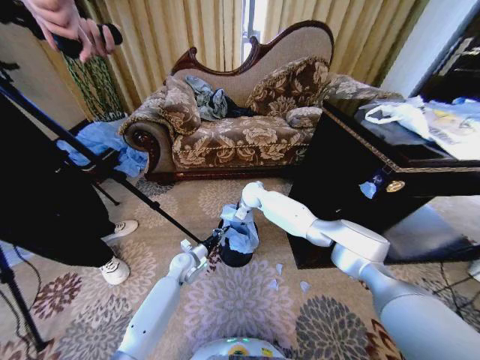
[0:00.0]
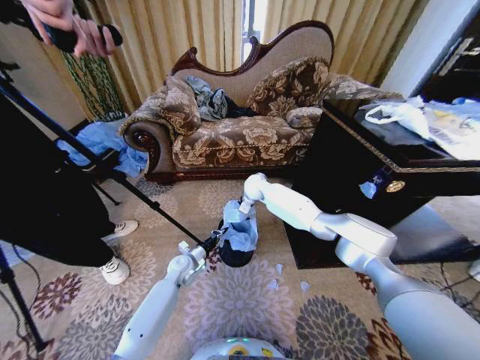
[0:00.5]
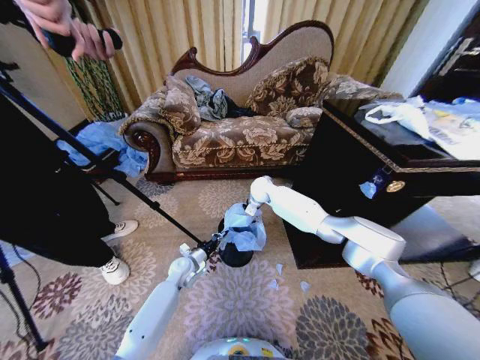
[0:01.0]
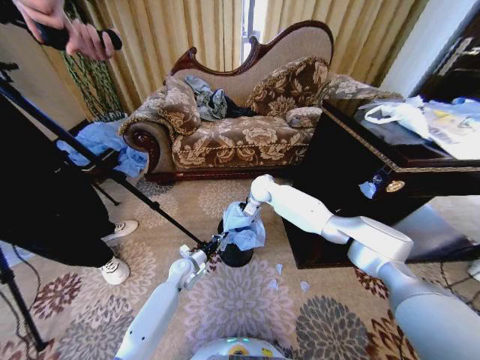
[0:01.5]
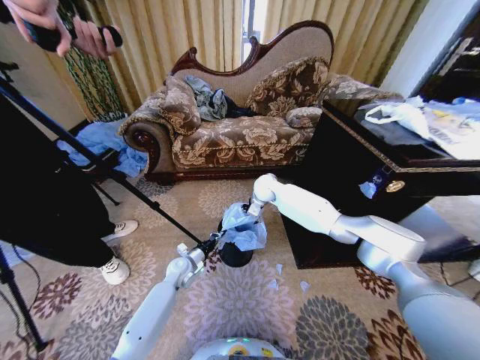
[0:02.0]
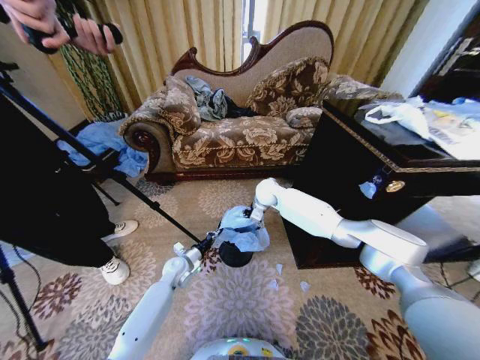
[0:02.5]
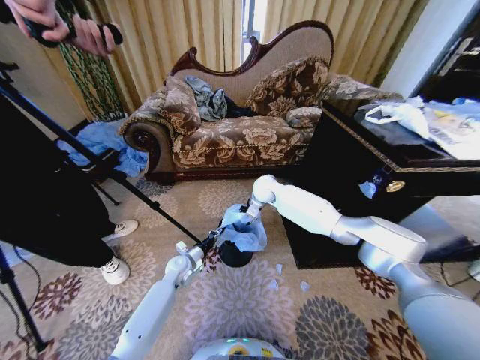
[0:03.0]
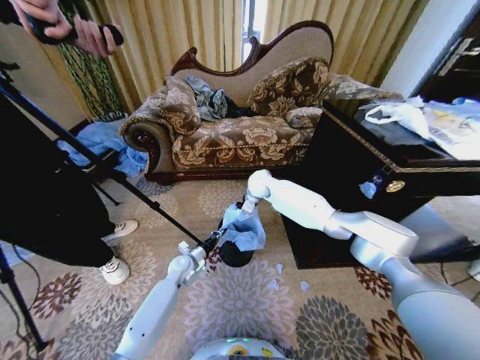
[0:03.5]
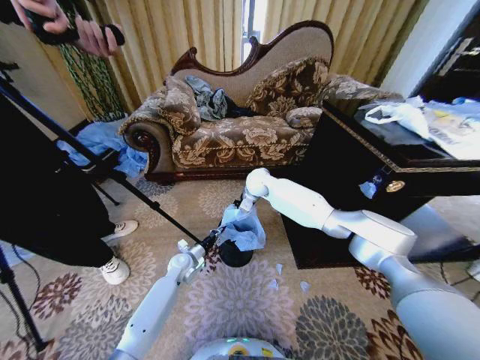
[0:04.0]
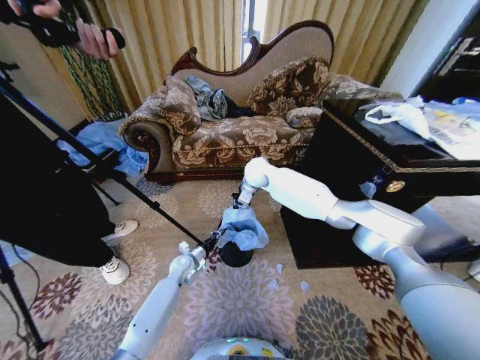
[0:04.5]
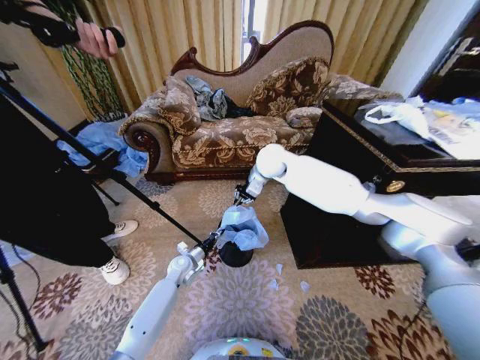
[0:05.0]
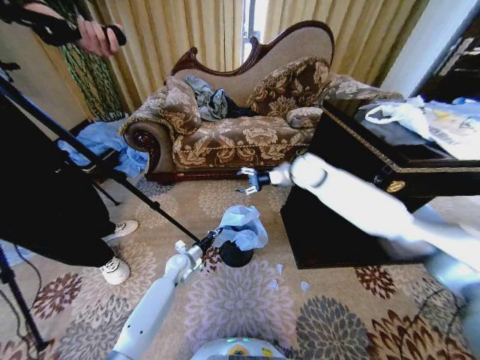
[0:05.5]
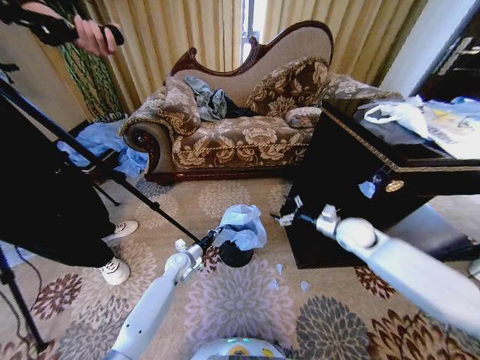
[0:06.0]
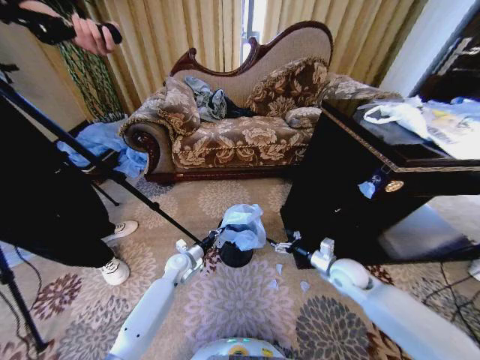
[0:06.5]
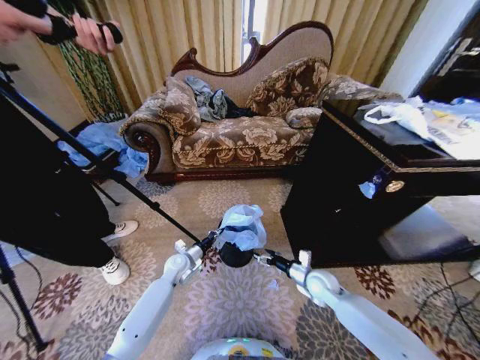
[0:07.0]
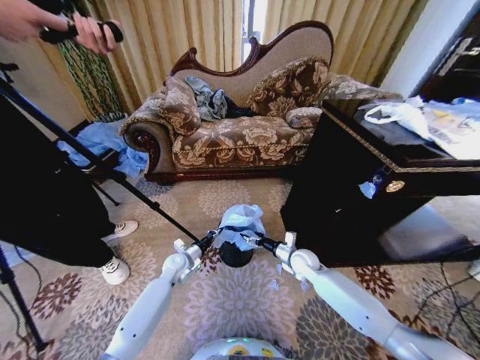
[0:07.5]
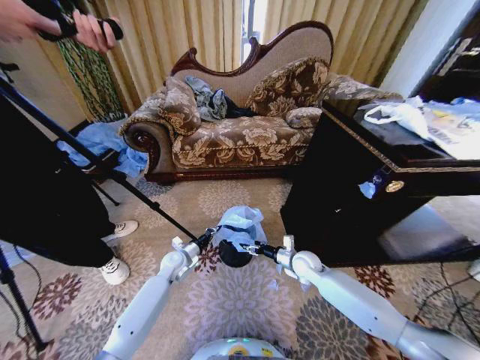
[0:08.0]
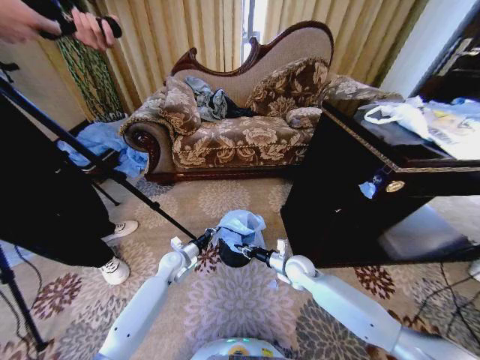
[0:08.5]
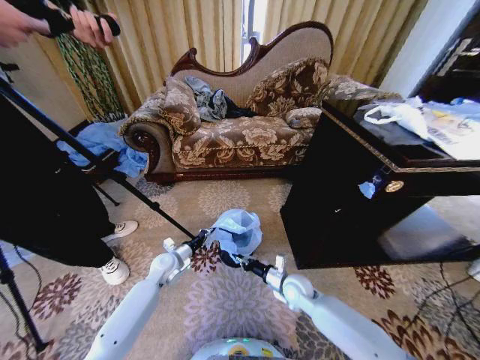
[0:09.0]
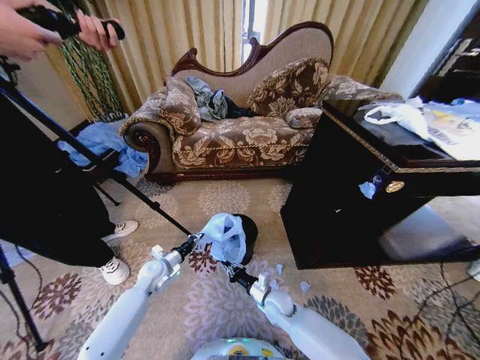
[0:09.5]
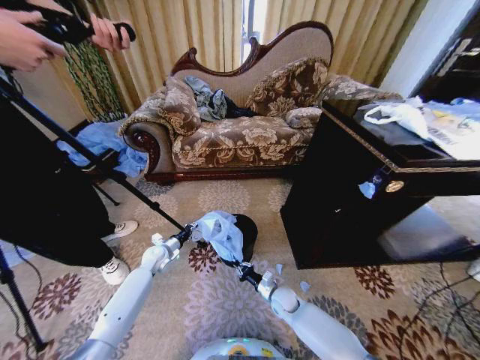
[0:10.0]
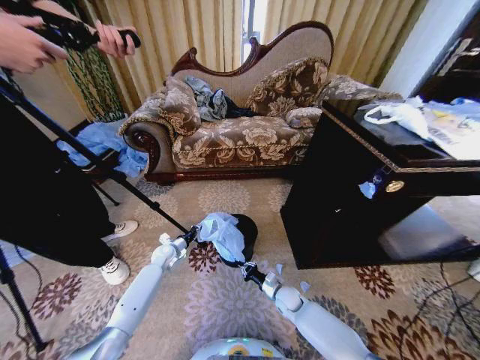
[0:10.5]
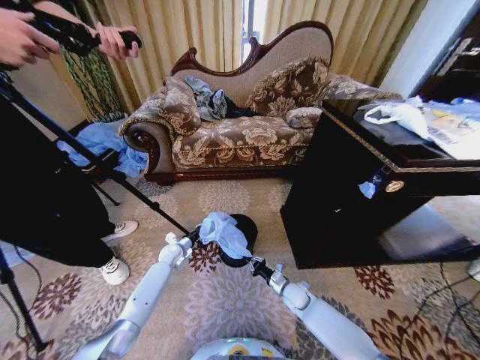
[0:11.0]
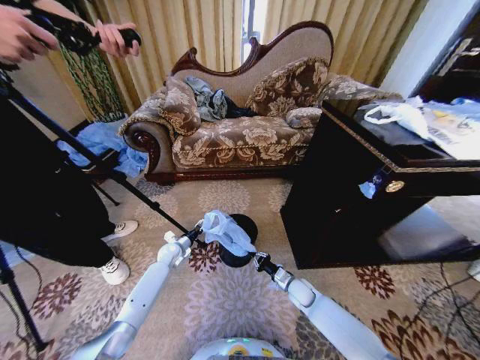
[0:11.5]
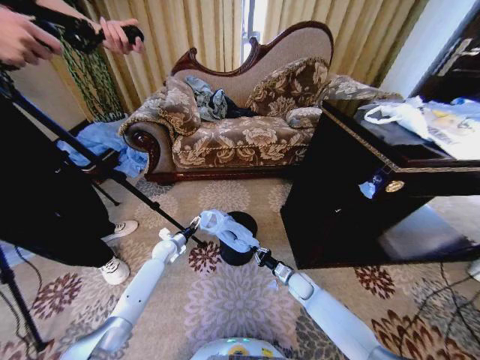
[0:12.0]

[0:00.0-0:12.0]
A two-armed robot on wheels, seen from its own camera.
Task of the whole recording: Place a garbage bag over the trash bin.
0.0 to 2.0 s: The right gripper shifts by approximately 5 cm.
2.0 to 4.0 s: The right gripper closes up.
4.0 to 6.0 s: The right gripper is displaced to the right and backward by some 35 cm, and opens its fingers.
6.0 to 8.0 s: The right gripper heads downward and to the left, covering approximately 20 cm.
8.0 to 10.0 s: The right gripper travels downward, backward and to the left by about 15 cm, and closes up, while the left gripper heads to the left, covering some 10 cm.
10.0 to 12.0 s: The left gripper ends up about 5 cm from where it was, and opens. The right gripper moves to the right and forward, roughly 10 cm.

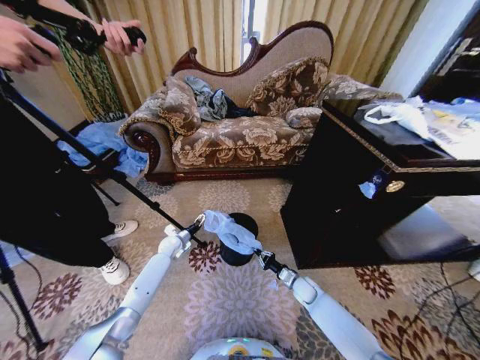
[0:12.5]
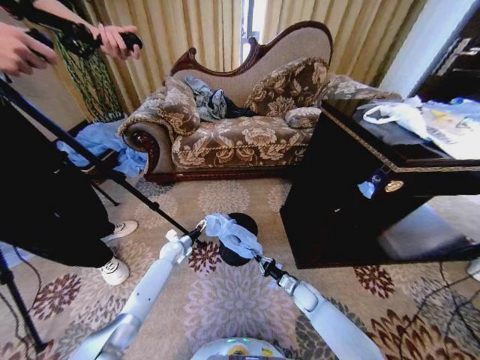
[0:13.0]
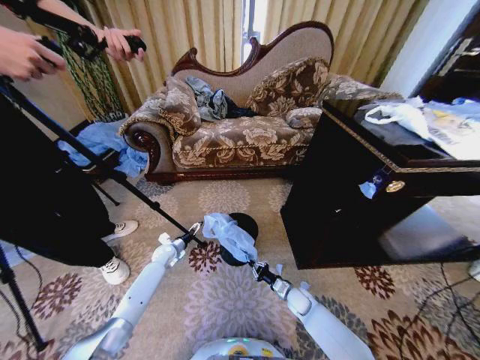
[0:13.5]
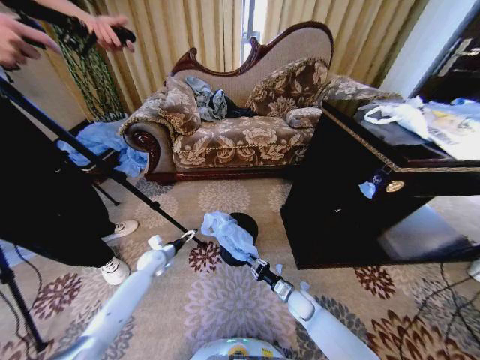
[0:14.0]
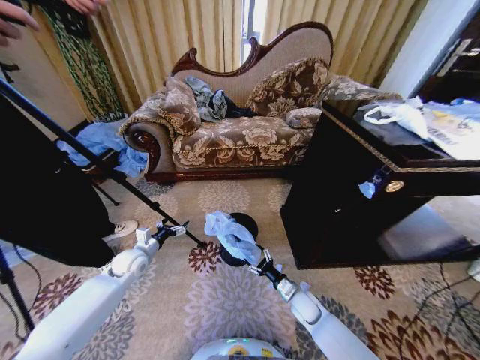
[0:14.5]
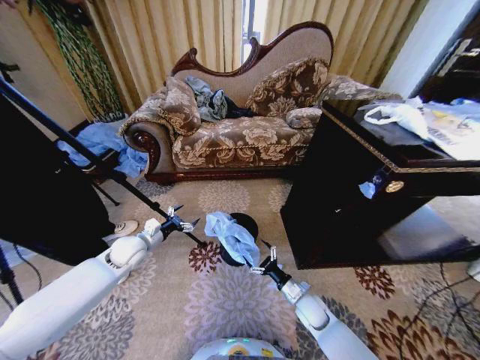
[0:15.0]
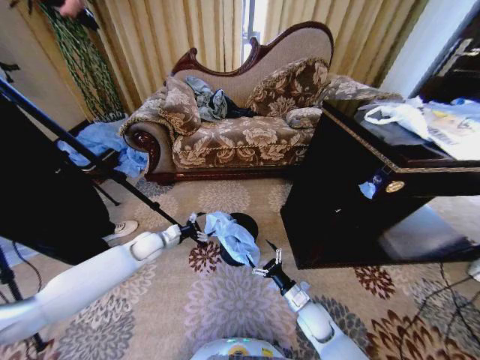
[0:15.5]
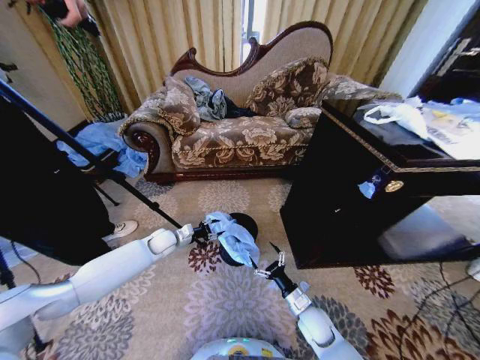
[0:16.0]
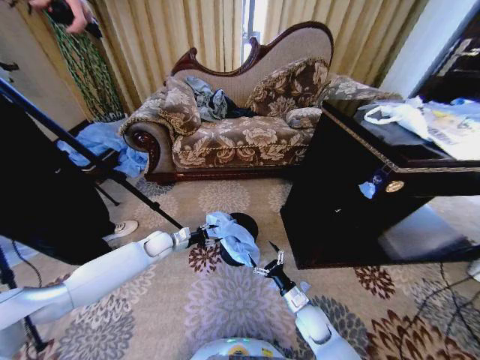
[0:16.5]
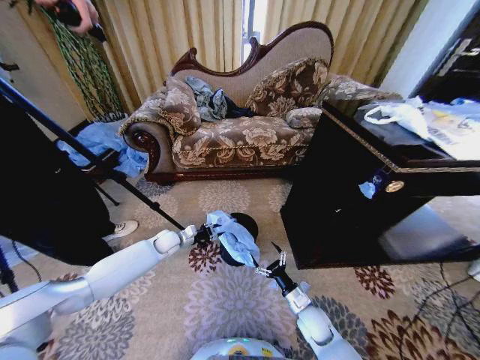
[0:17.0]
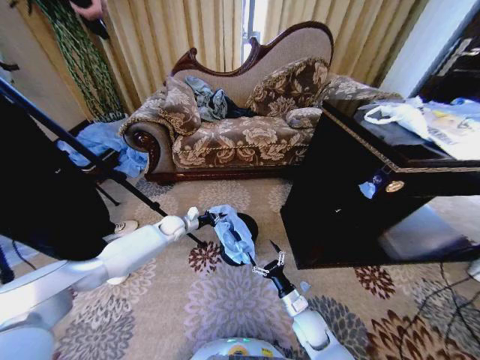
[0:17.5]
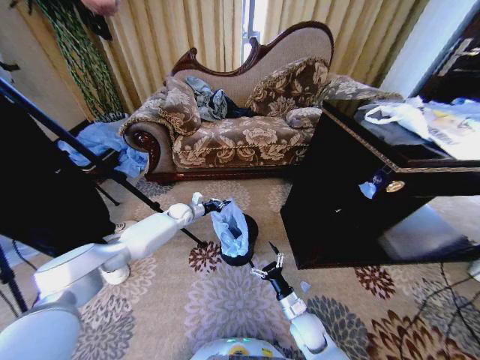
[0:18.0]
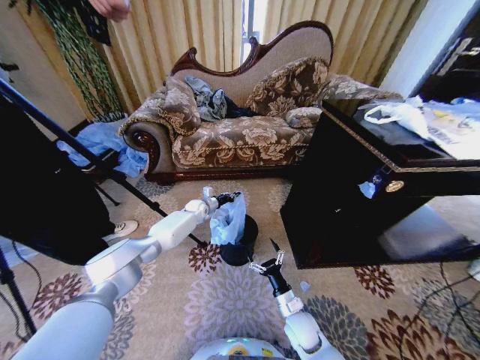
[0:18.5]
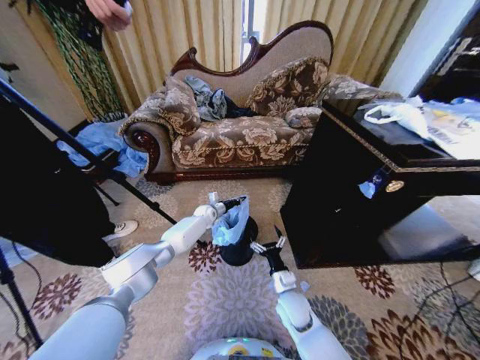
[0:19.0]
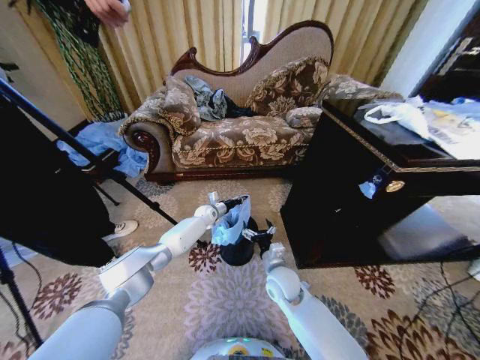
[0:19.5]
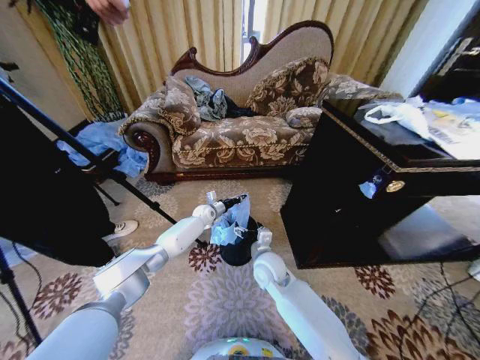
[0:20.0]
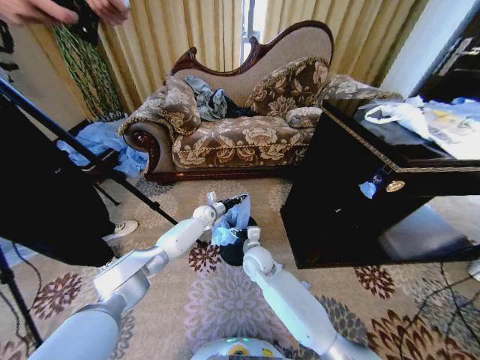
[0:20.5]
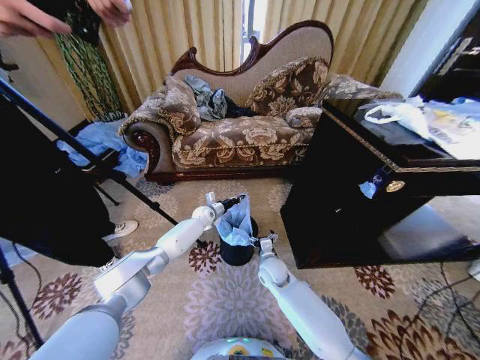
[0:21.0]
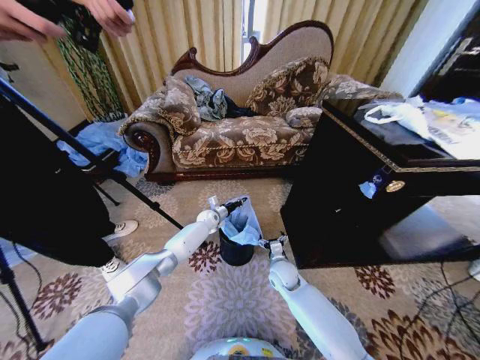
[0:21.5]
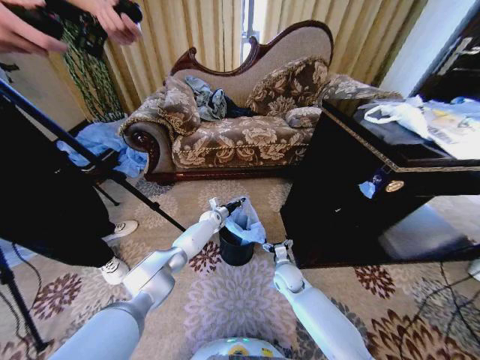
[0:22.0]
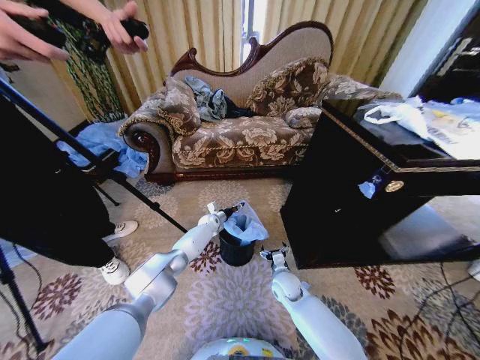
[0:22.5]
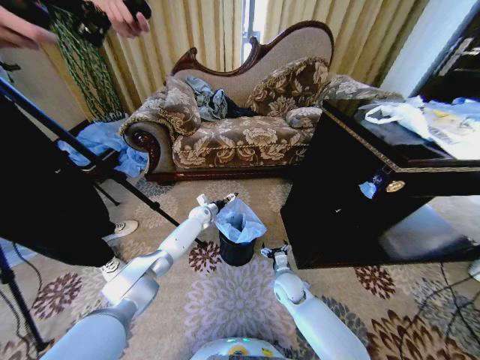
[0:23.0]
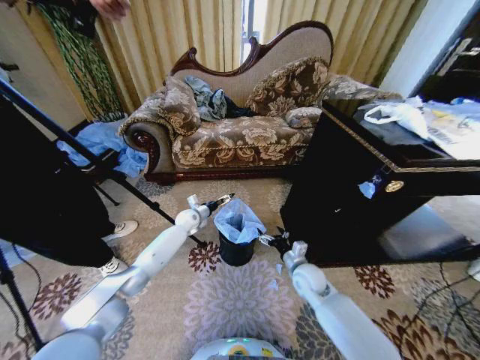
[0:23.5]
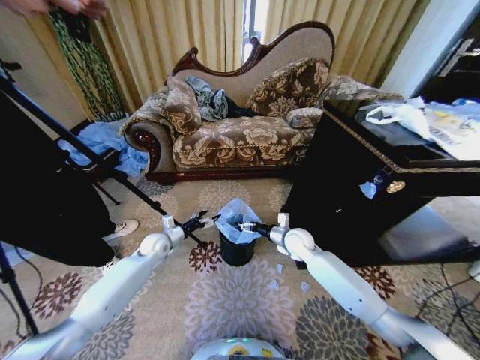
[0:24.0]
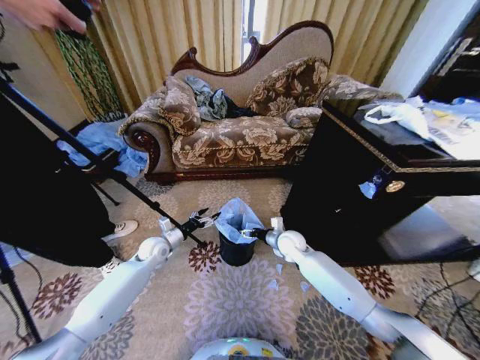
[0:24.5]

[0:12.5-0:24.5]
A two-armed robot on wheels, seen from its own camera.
Task of the whole recording: Place a garbage bag over the trash bin.
12.5 to 14.5 s: The right gripper moves backward, roughly 5 cm, and opens. The left gripper is displaced backward, upward and to the left by about 15 cm.
14.5 to 16.5 s: The right gripper moves some 5 cm; the left gripper shifts about 10 cm forward and to the right, and closes up.
16.5 to 18.5 s: The left gripper heads forward and to the right, covering some 20 cm, and closes up. Meanwhile the right gripper ends up some 5 cm from where it was.
18.5 to 20.5 s: The right gripper travels forward, to the left and upward by about 25 cm.
20.5 to 22.5 s: The right gripper heads downward and to the right, covering approximately 15 cm. Meanwhile the left gripper shifts roughly 5 cm downward, and opens its fingers.
22.5 to 24.5 s: The right gripper is displaced upward and forward by about 15 cm. Meanwhile the left gripper travels backward, to the left and upward by some 25 cm, and opens.

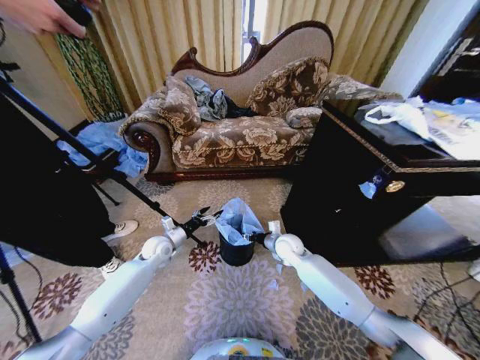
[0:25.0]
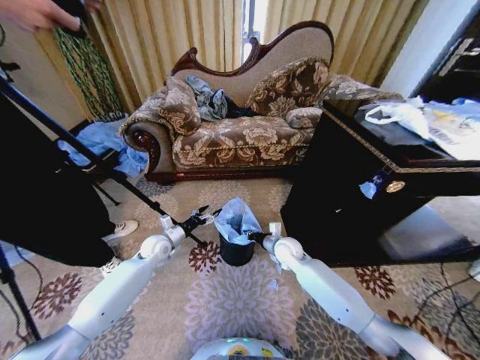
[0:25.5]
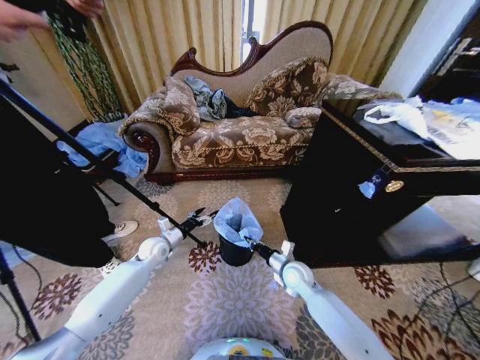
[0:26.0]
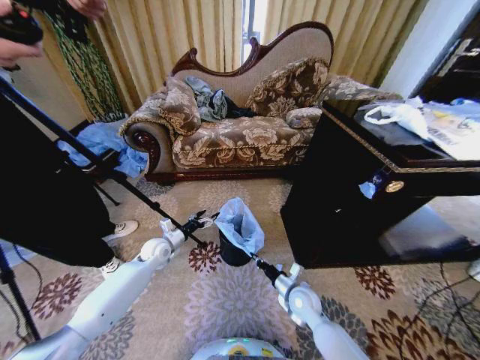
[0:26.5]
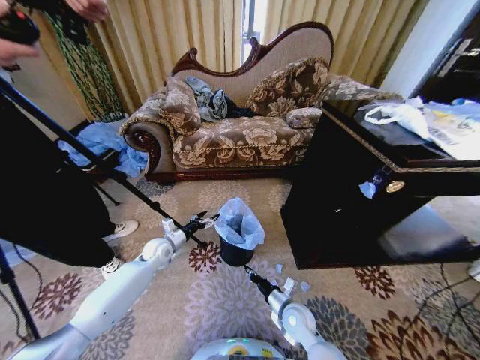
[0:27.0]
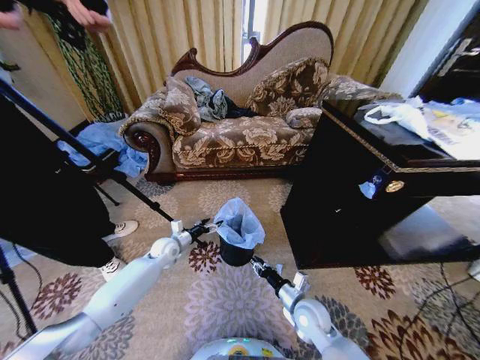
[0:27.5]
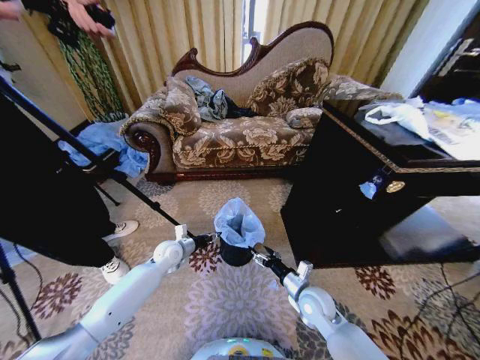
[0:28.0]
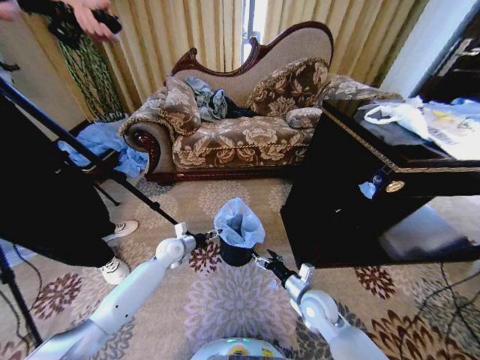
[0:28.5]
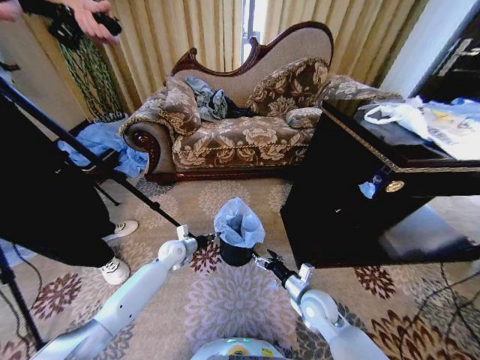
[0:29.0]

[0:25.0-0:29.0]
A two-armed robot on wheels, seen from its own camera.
Task of the whole recording: Place a garbage bag over the trash bin.
25.0 to 27.0 s: The right gripper is displaced backward and downward by approximately 20 cm, and closes.
27.0 to 29.0 s: The left gripper shifts by some 5 cm, and closes up, while the right gripper travels upward and to the right by some 5 cm, and opens up.
